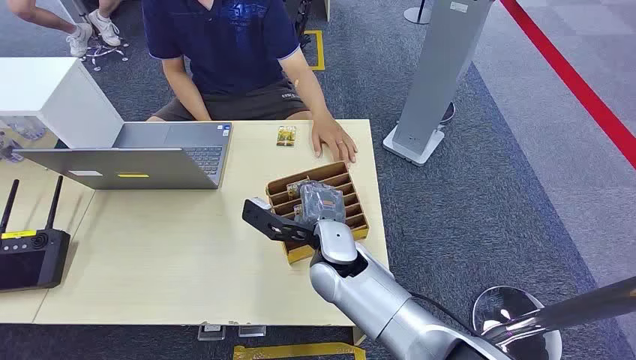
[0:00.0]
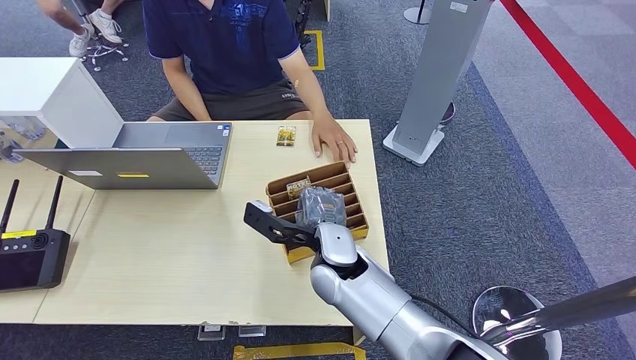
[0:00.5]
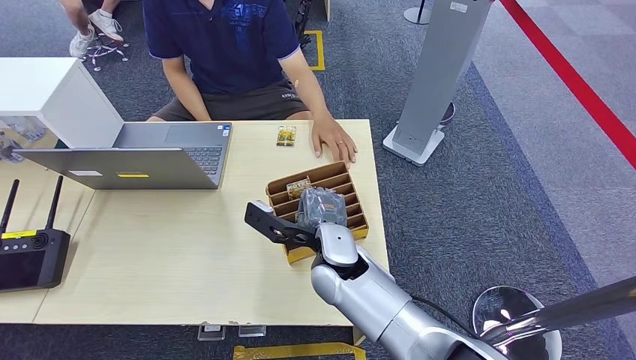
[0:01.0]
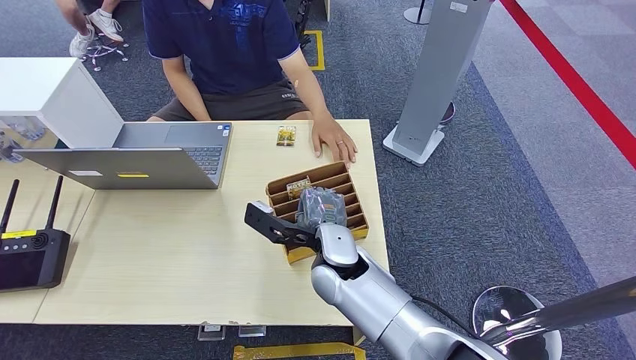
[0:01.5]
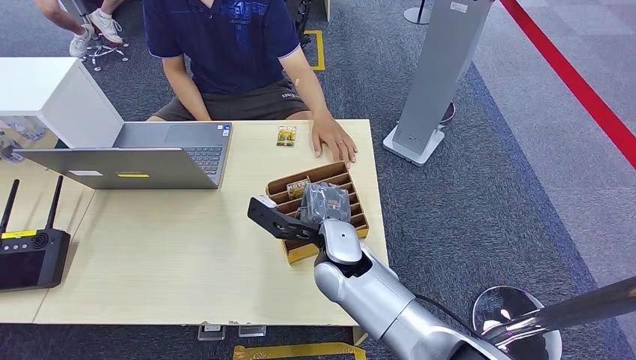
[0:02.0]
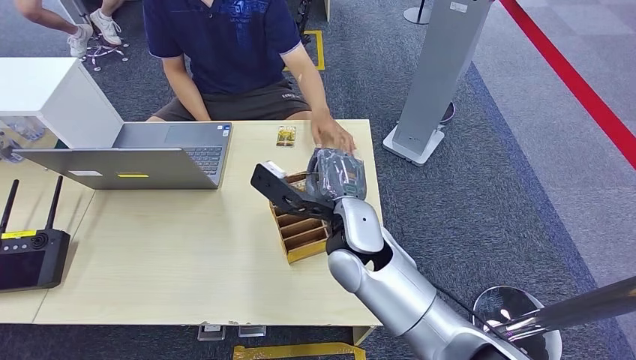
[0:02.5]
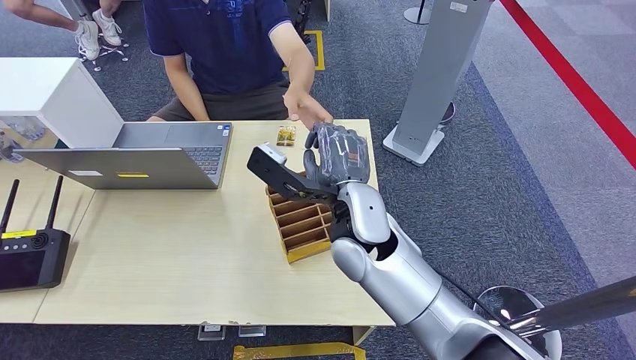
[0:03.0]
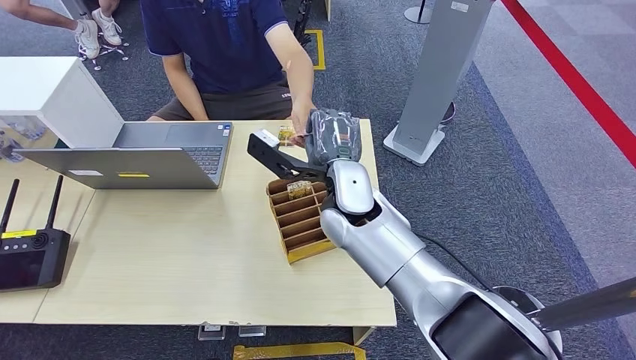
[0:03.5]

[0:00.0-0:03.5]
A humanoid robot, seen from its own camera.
Step, 0:00.0 to 0:02.0: Pick up the key card from the card box.
Step, 0:02.5 to 0:03.5: Hand the key card to the target.
0:02.0 to 0:03.5: The right hand moves upward and forward, approximately 10 cm.
